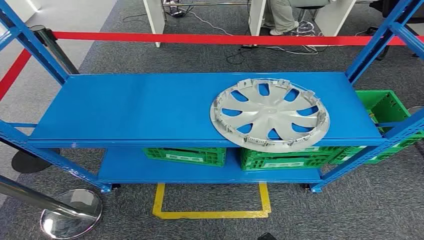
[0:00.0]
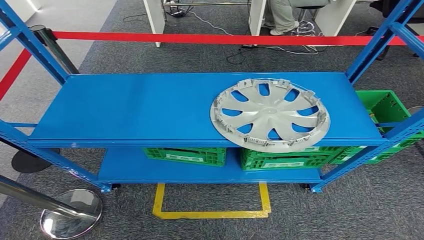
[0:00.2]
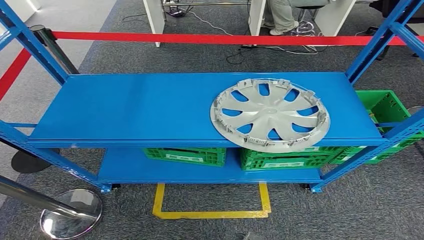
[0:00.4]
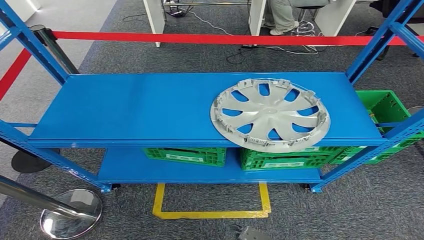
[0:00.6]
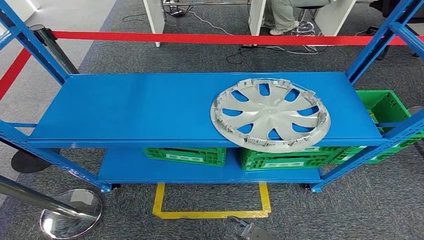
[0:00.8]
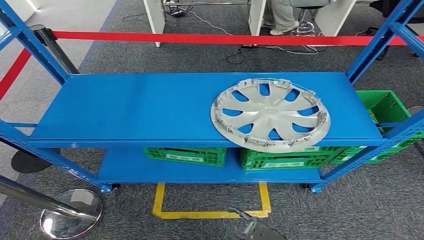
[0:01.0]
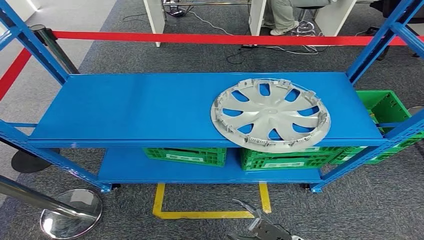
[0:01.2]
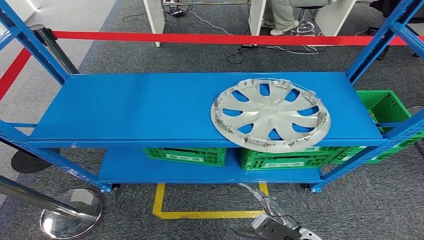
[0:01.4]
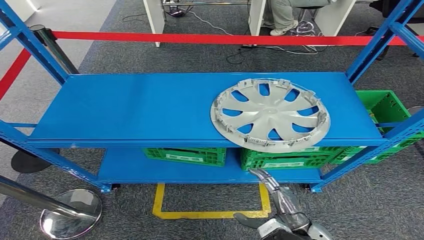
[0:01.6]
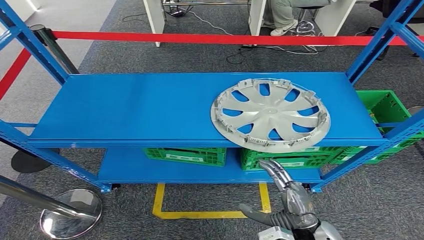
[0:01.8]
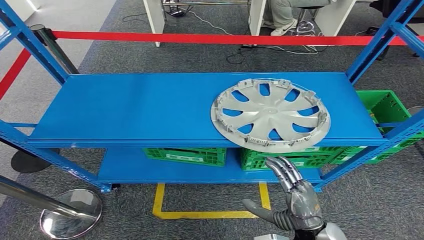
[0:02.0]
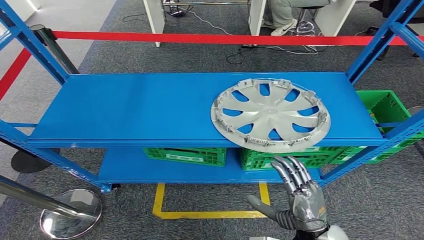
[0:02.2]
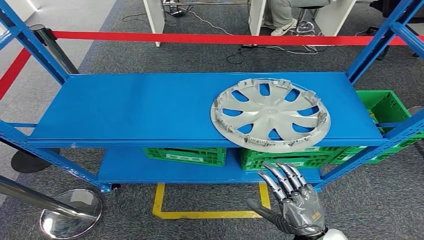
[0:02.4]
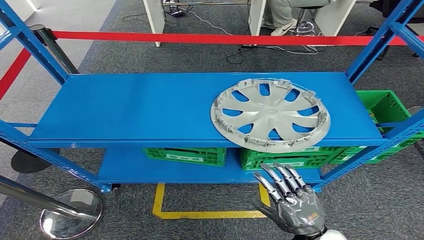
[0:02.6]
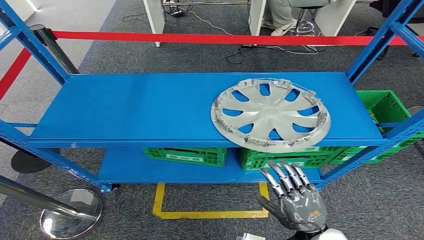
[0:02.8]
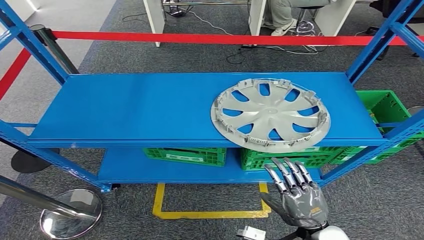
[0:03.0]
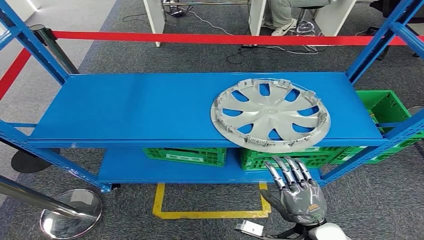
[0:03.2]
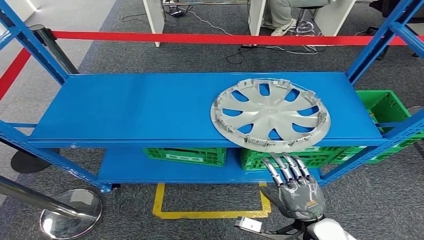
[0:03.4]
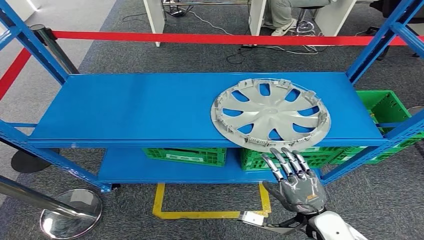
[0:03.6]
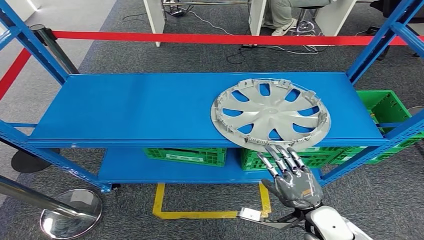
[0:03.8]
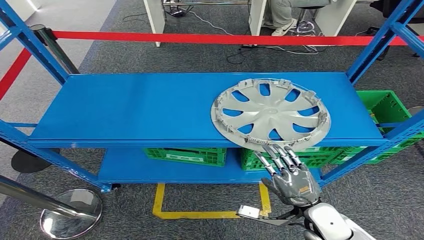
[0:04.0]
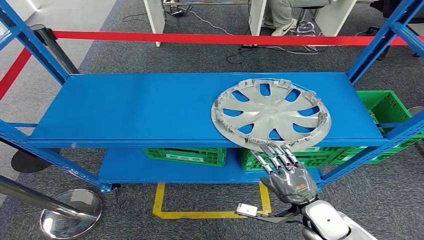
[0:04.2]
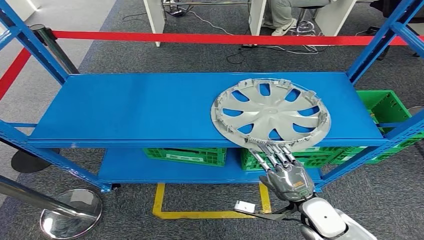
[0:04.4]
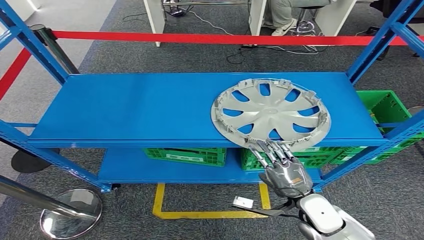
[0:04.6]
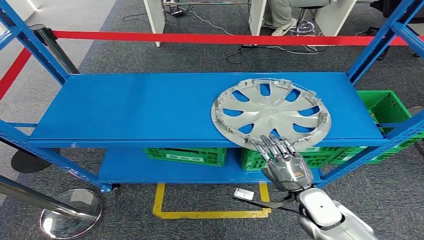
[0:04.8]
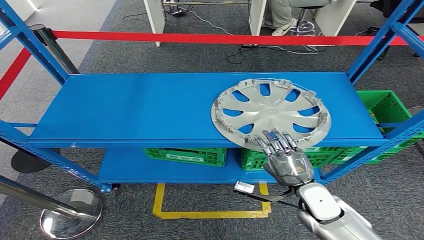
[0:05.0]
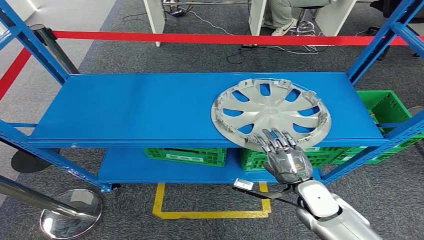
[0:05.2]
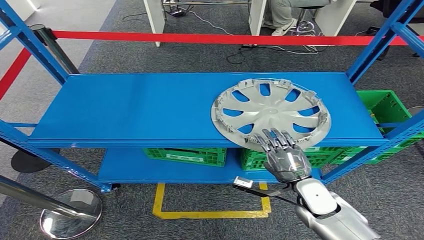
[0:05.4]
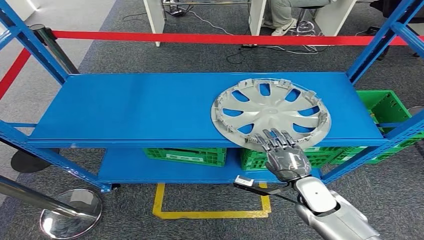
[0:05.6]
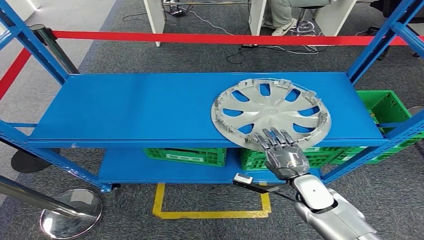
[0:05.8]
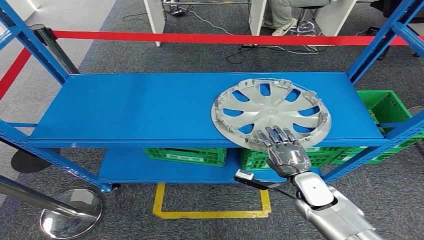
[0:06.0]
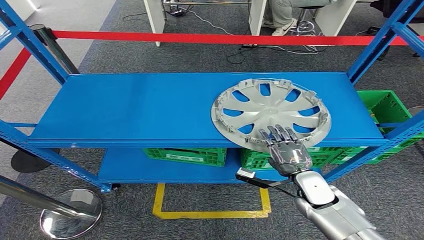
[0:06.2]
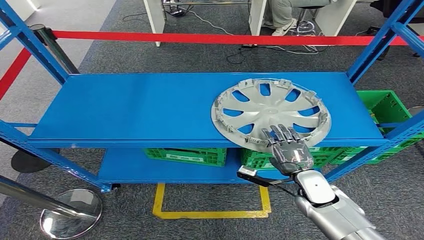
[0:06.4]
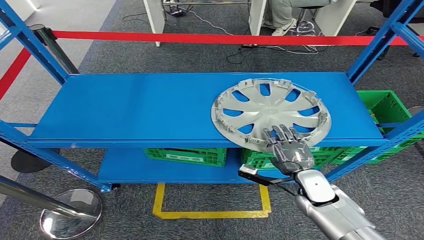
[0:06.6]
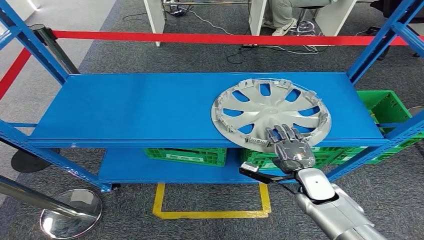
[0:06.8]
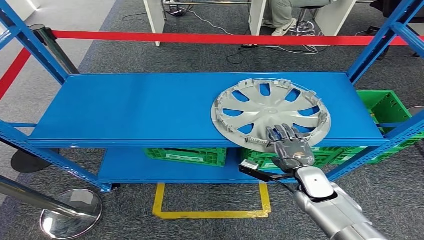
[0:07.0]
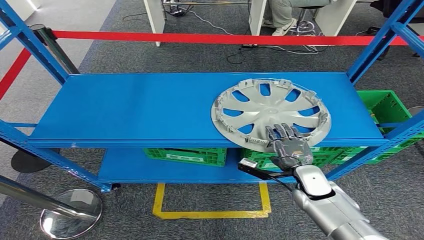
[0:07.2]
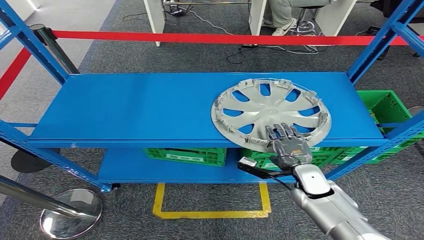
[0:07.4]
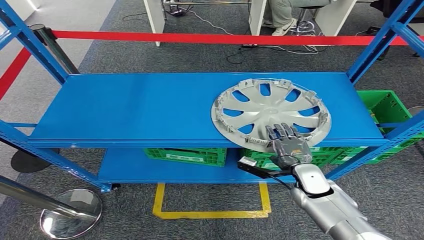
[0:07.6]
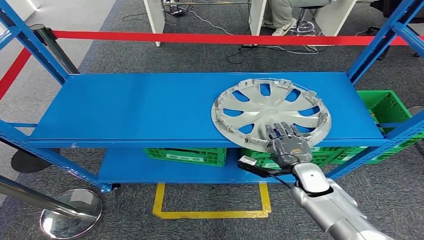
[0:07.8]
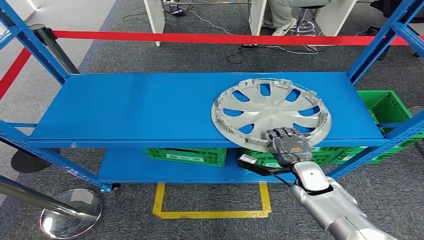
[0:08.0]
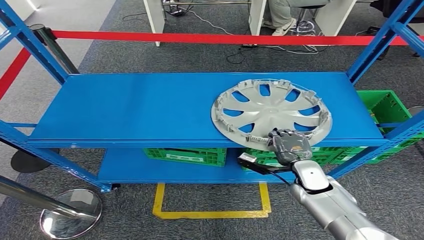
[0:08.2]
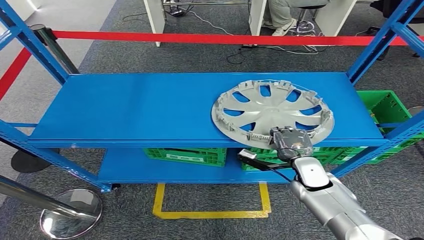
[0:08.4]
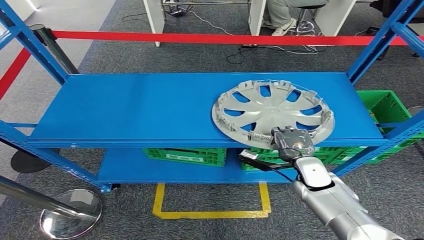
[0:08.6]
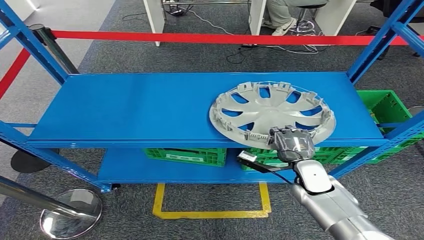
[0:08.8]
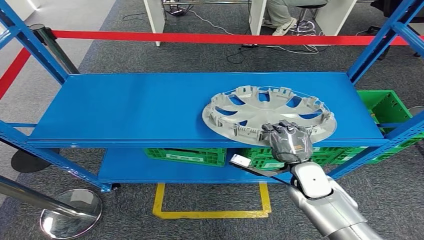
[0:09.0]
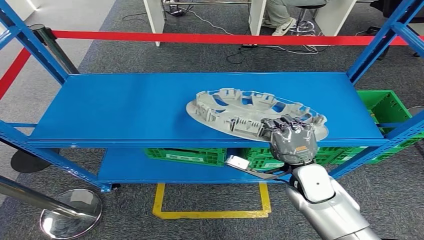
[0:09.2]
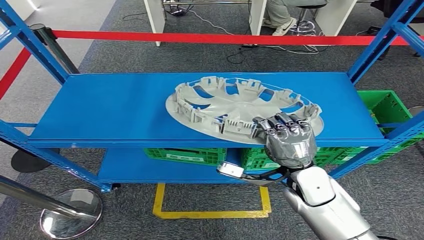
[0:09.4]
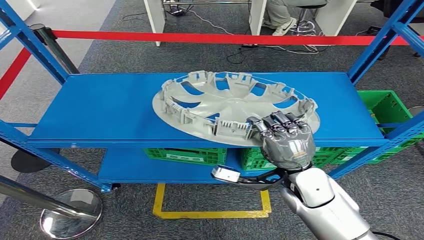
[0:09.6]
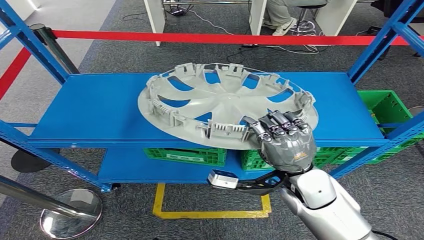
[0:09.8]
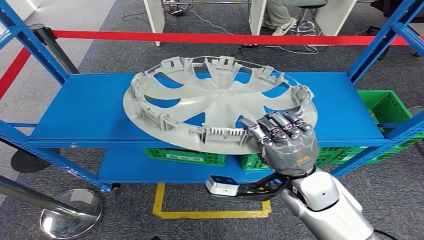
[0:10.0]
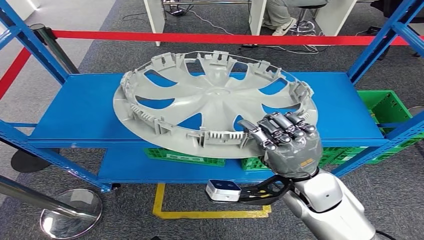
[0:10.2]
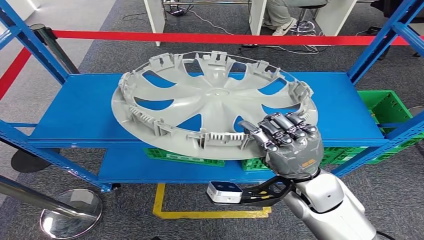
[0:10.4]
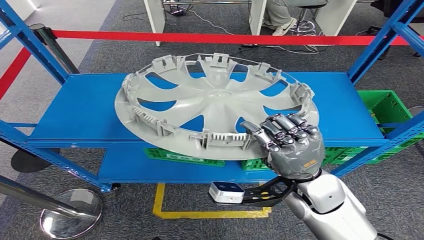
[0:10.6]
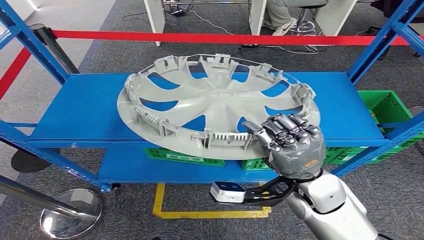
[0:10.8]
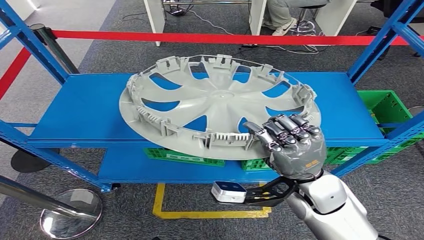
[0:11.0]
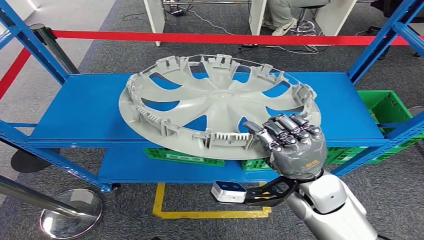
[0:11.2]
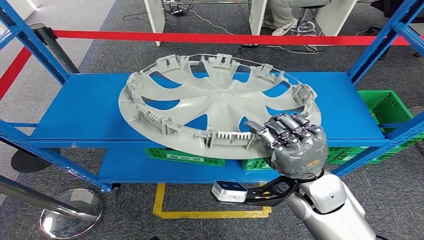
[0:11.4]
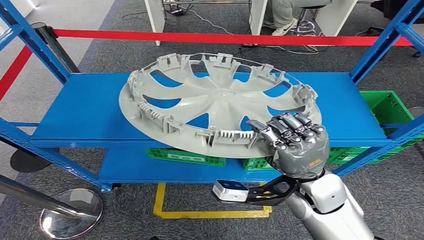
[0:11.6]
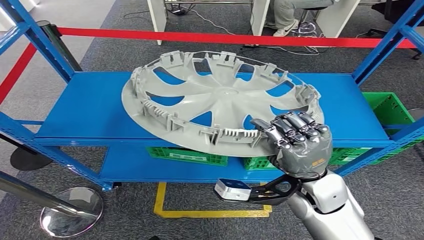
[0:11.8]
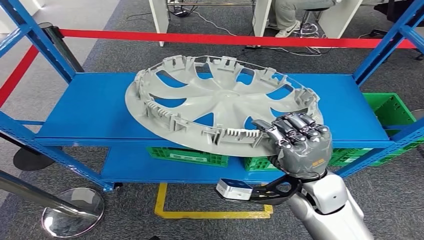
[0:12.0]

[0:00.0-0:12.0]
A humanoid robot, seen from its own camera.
Step, 0:00.0 to 0:11.8: Pick up the small component from the shelf.
0:03.0 to 0:04.4: The right hand shifts about 5 cm forward.
0:04.4 to 0:06.0: The right hand goes approximately 5 cm forward.
0:06.0 to 0:07.6: The hands stay close to where they were, moving slightly.
0:07.6 to 0:09.0: The right hand ends up roughly 5 cm from where it was.

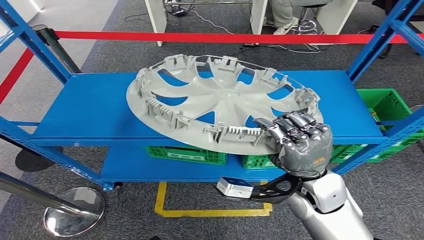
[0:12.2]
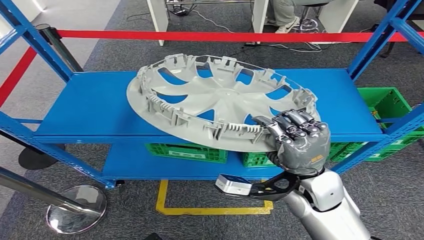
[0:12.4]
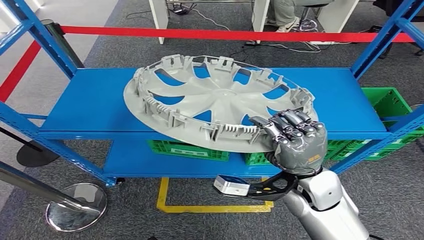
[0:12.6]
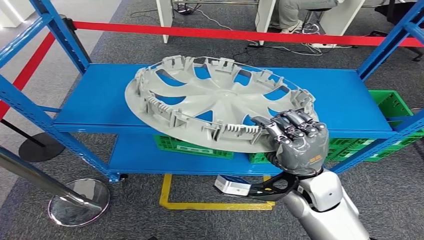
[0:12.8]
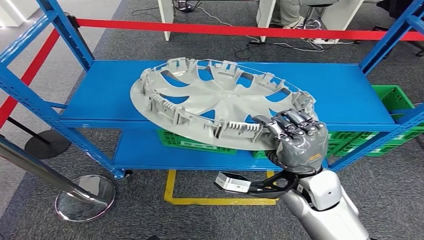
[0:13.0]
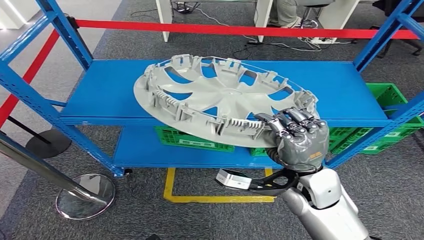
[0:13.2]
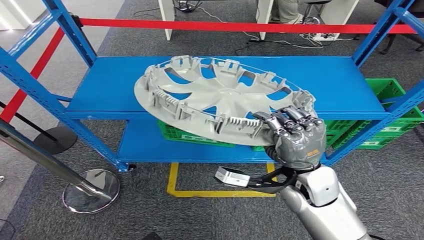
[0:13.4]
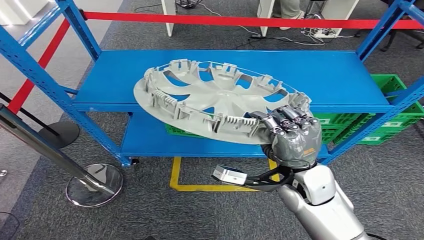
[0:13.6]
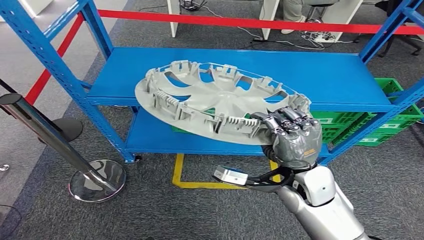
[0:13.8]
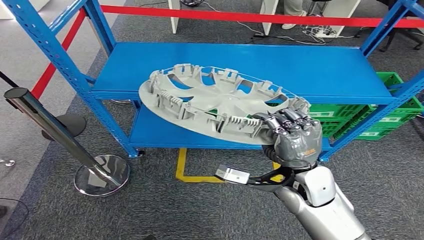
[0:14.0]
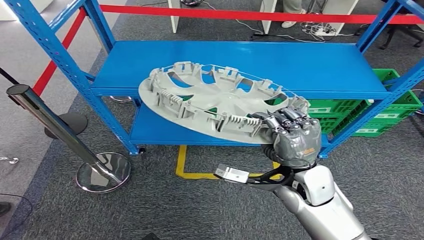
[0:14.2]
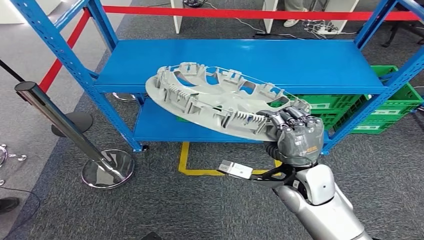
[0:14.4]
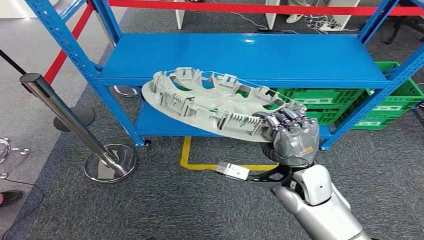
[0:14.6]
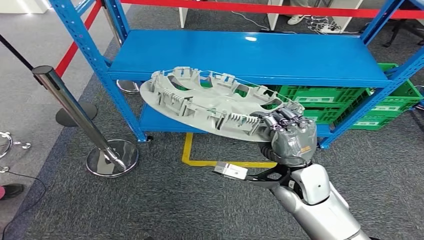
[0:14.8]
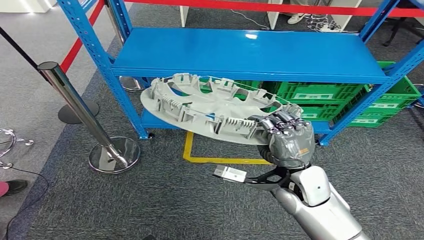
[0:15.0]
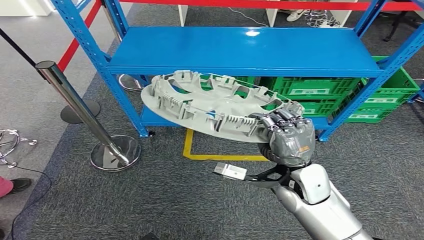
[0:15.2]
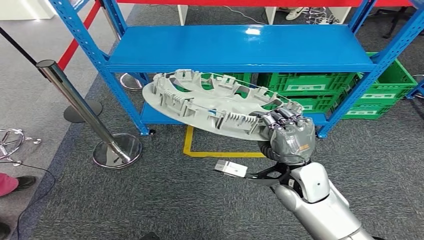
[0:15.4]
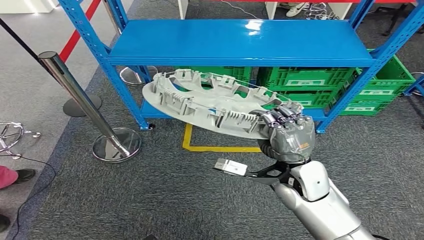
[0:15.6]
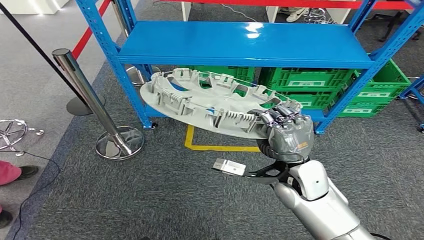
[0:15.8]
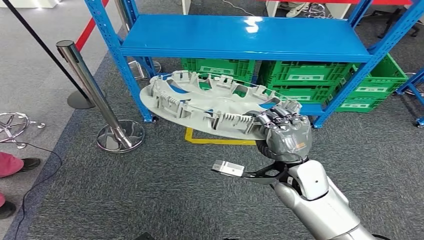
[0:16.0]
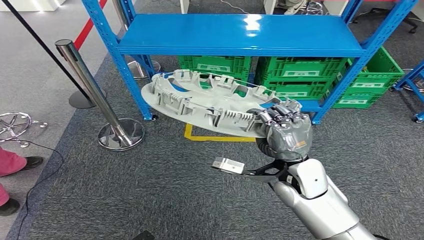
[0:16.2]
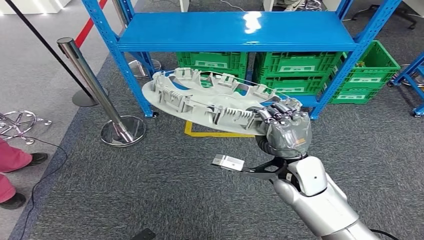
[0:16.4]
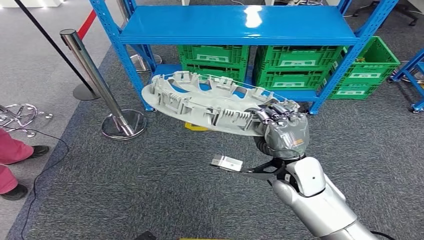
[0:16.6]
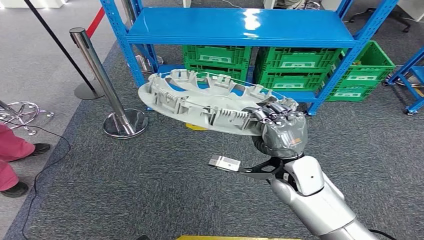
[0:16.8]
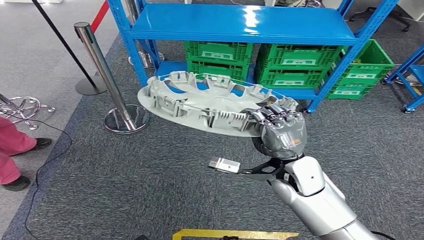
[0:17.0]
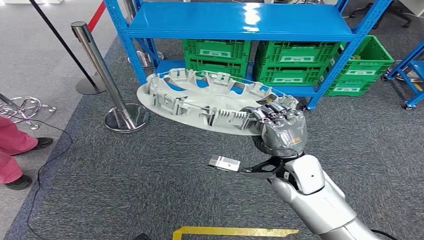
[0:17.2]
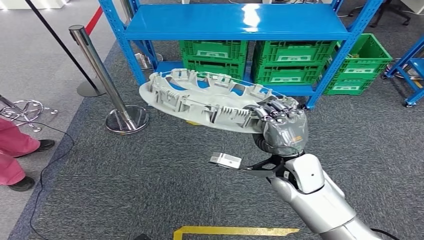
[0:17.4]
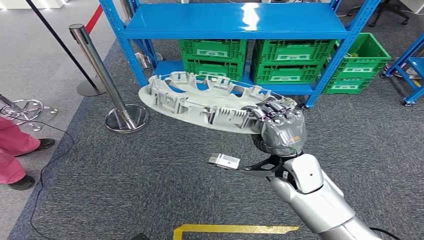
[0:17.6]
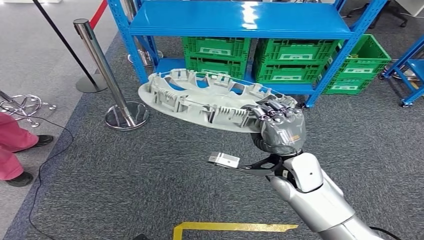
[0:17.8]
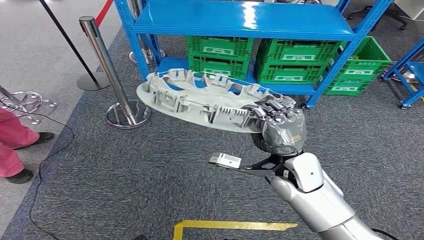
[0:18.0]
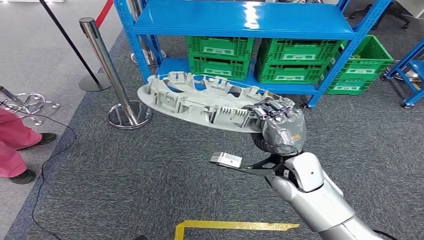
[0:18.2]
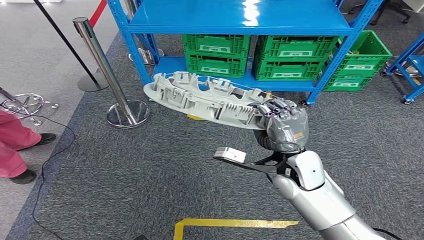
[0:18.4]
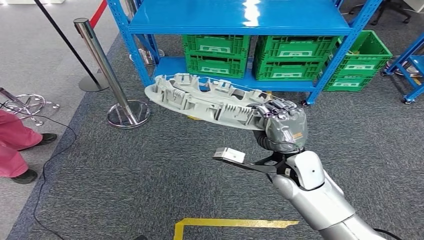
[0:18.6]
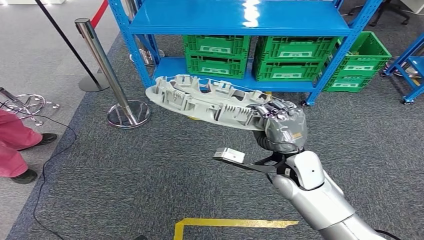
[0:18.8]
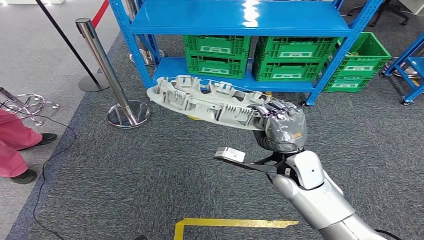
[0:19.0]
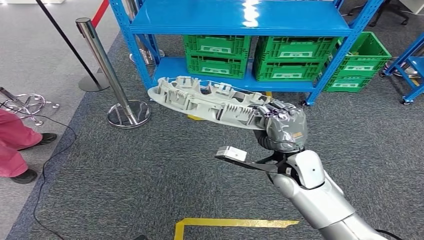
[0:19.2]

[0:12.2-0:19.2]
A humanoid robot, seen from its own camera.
0:17.8 to 0:19.2: There are only small adjustments of the hands.
